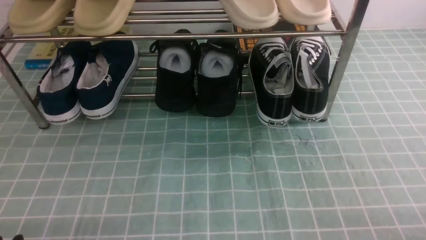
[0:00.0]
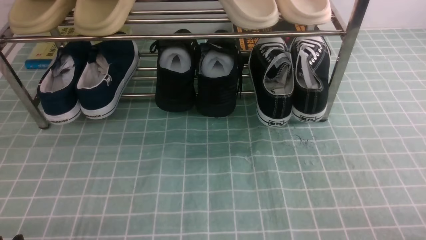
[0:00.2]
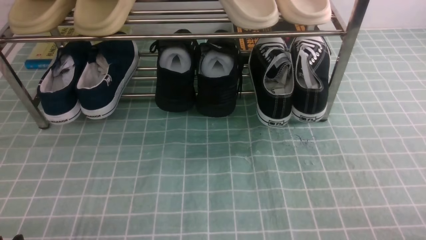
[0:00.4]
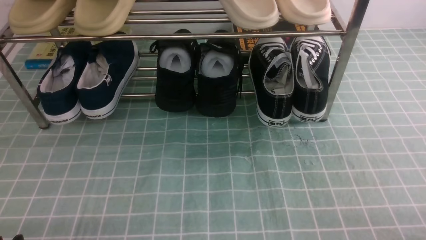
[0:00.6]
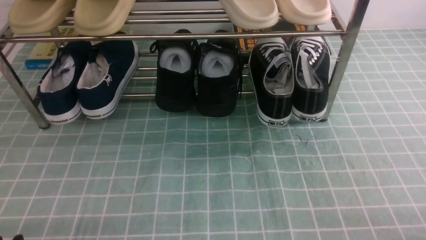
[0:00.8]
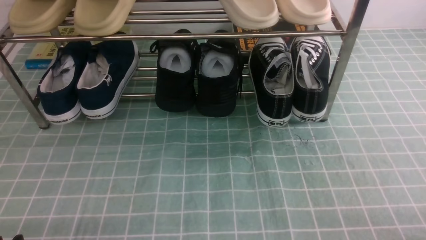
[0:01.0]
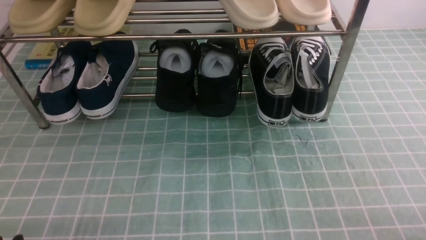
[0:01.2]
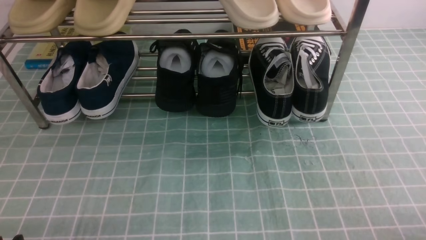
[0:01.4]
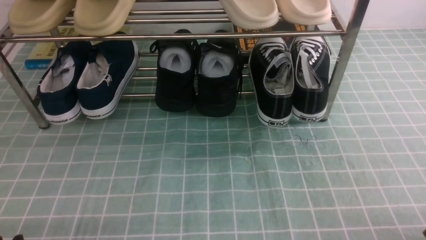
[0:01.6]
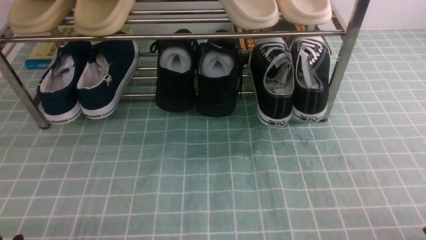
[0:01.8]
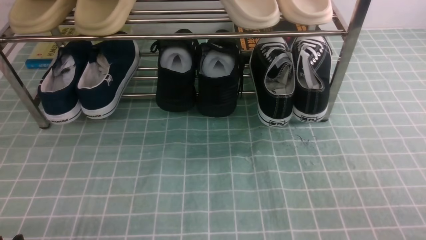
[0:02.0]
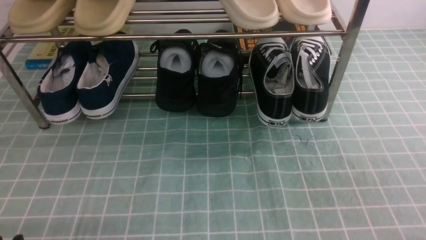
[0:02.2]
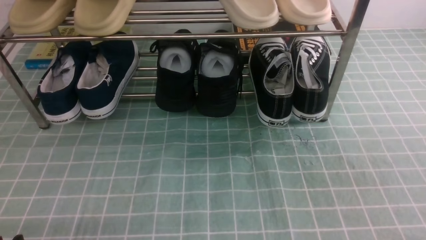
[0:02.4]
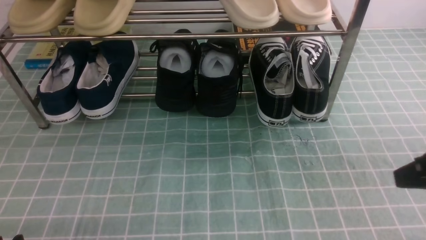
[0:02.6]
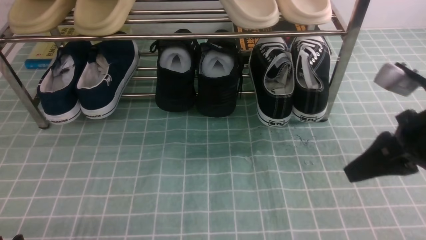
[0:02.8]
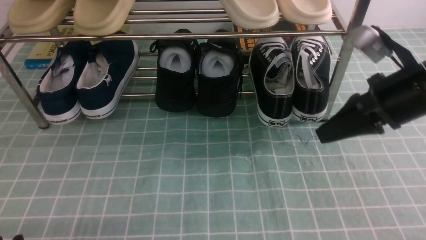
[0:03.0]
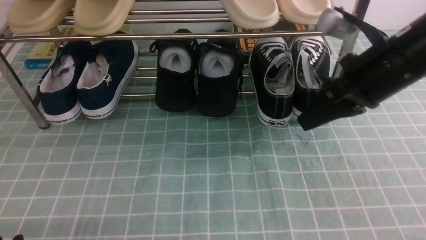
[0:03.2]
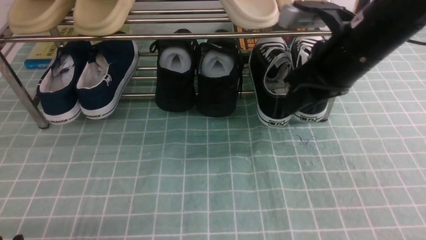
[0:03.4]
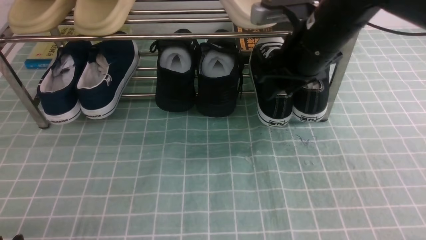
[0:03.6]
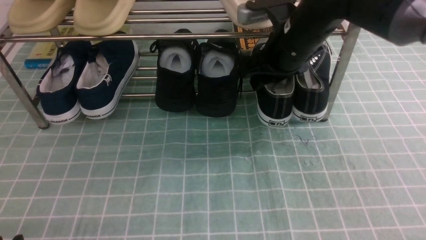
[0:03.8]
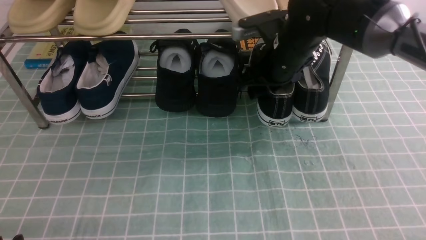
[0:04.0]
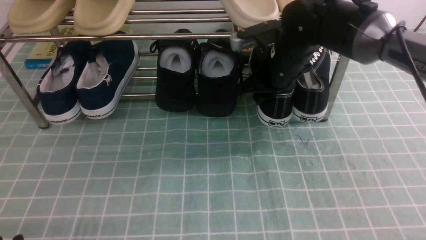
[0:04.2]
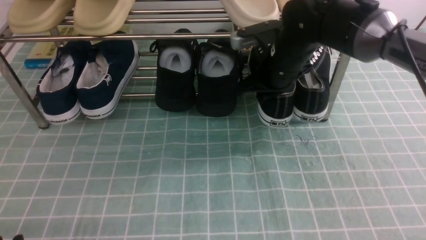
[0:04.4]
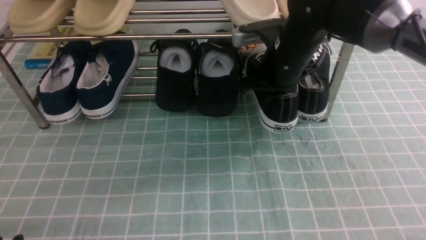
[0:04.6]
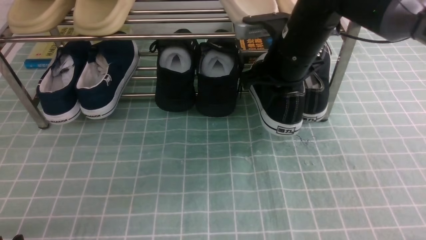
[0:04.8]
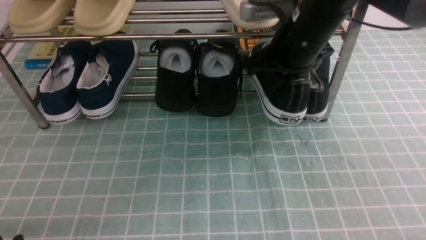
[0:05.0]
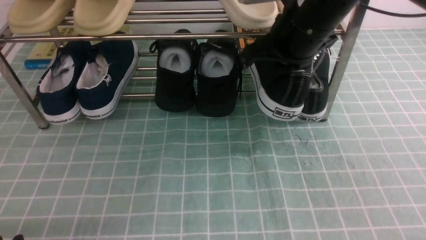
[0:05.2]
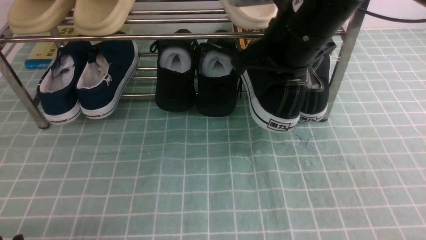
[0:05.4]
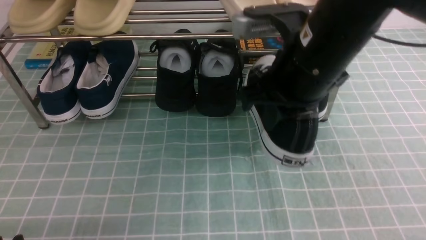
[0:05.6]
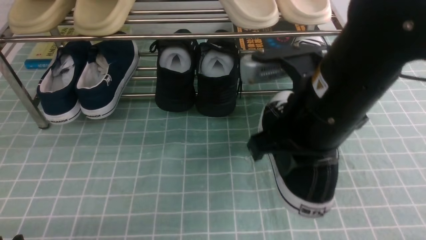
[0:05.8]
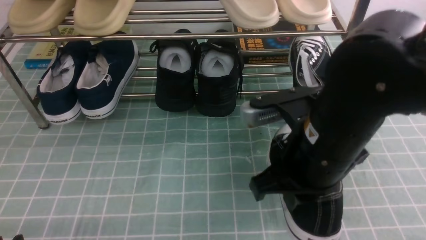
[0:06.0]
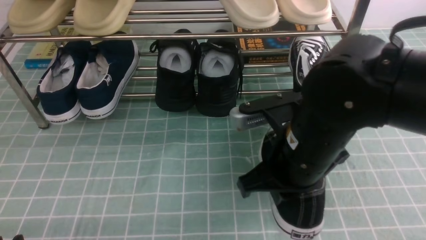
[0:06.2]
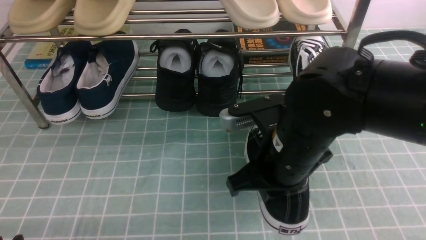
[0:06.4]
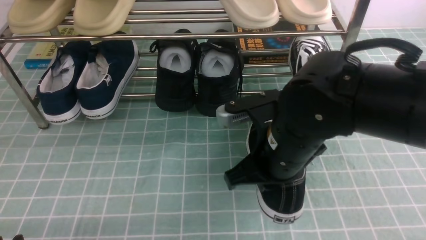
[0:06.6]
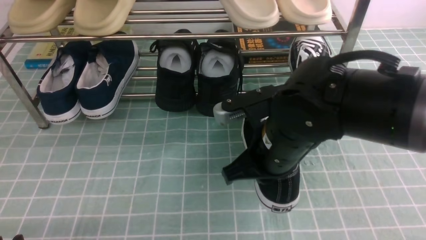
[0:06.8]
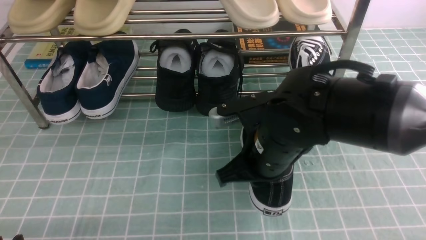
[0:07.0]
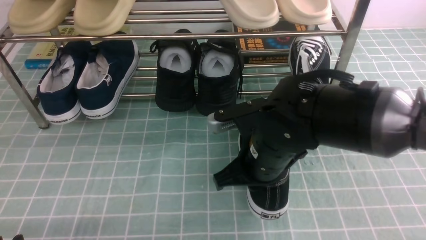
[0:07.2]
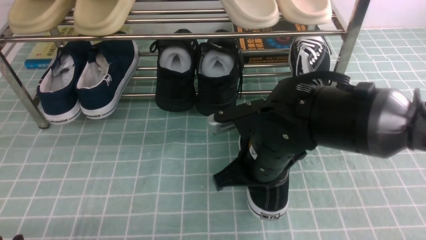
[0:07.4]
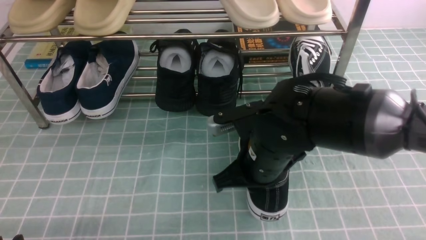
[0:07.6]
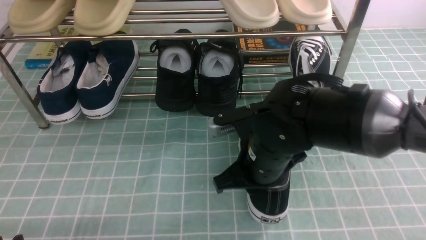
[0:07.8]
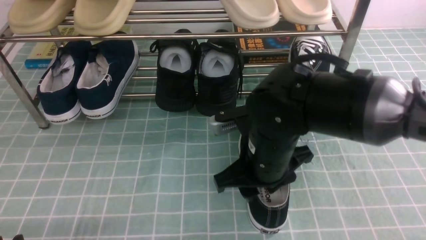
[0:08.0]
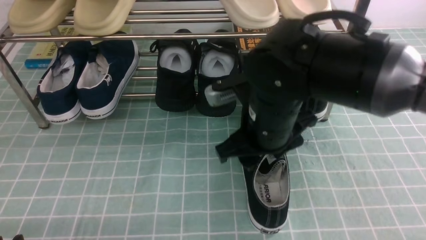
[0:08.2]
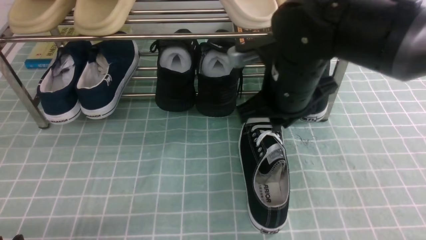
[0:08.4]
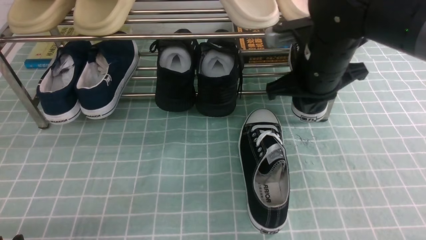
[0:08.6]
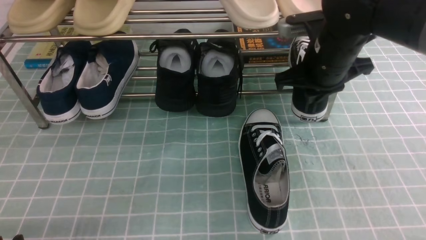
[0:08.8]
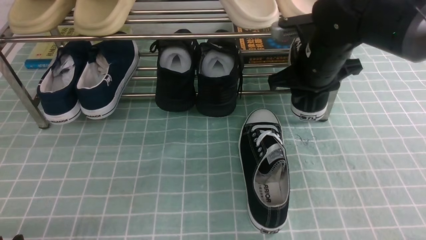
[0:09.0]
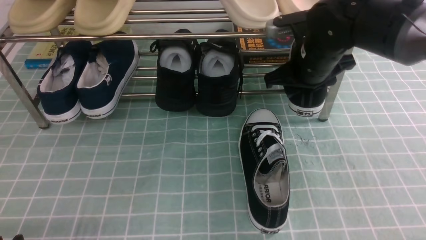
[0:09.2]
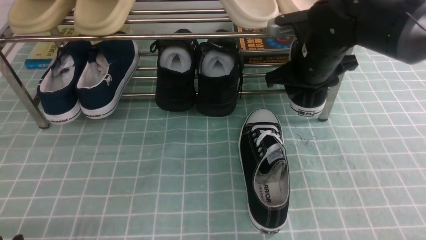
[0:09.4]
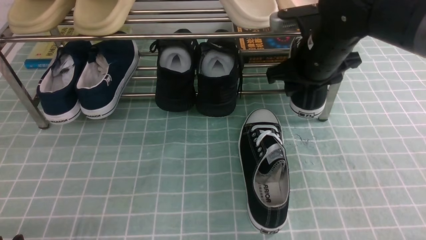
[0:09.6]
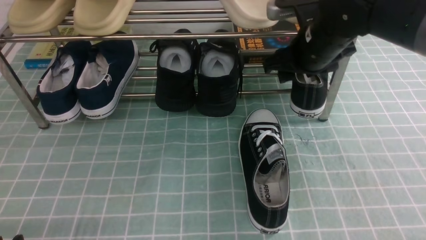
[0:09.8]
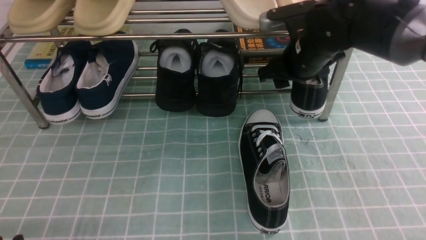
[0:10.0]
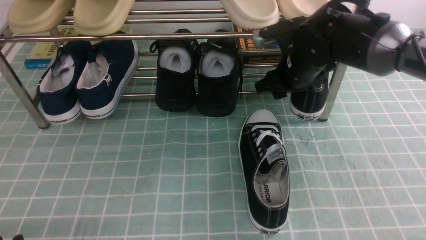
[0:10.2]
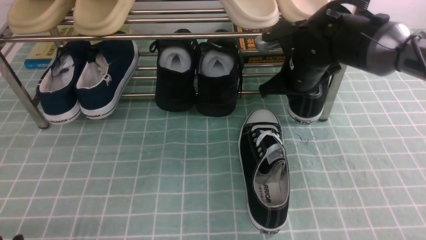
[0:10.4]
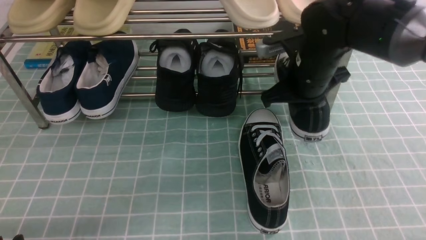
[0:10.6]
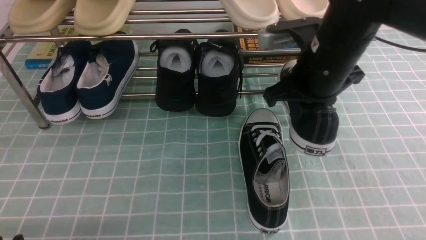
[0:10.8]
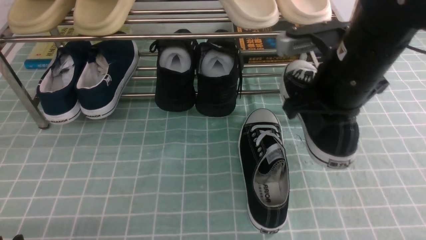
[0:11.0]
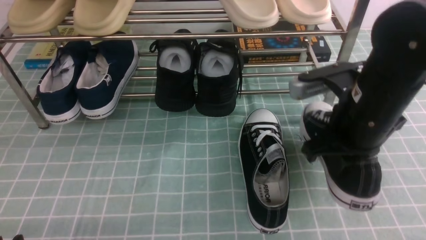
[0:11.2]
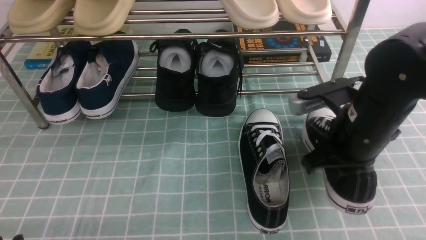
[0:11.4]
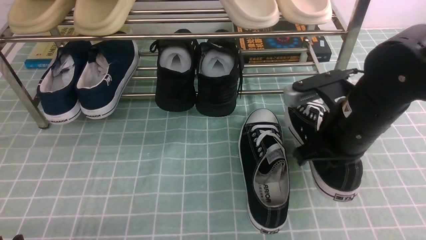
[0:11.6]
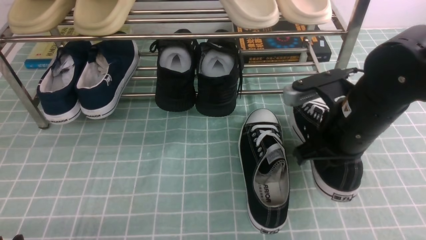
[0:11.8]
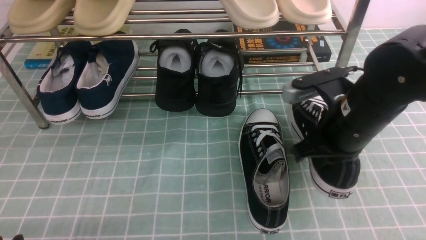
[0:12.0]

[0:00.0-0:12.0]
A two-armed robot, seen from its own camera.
Step, 0:00.0 to 0:04.2: use the right arm to clamp a shoe on the right side of the shoe rack.
Step, 0:04.4 to 0:08.2: use the right arm to take out the clamped shoe from the shoe rack and put it down.
Step, 0:08.4 to 0:10.2: use the right arm to clamp a shoe on the right side of the shoe rack.
0:01.6 to 0:03.0: The right gripper travels forward, upward and to the left by approximately 30 cm, and closes.
0:03.0 to 0:04.4: The right gripper moves forward and to the left, some 20 cm, and opens and closes again.
0:04.4 to 0:06.0: The right gripper is displaced backward by some 20 cm.
0:06.0 to 0:07.6: The right gripper is displaced downward by some 10 cm.
0:07.6 to 0:09.0: The right gripper heads forward, to the right and upward, covering approximately 15 cm, and opens its fingers.
0:09.0 to 0:10.4: The right gripper closes its fingers.
0:10.4 to 0:12.0: The right gripper travels backward by approximately 10 cm.

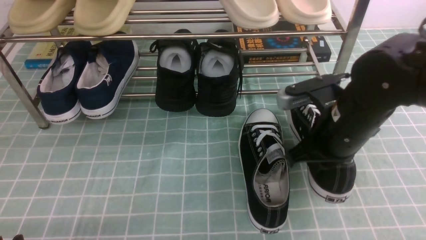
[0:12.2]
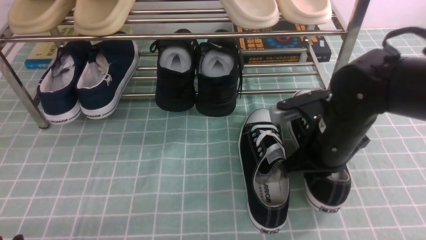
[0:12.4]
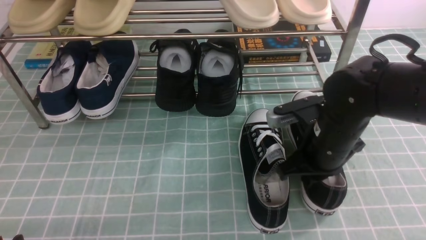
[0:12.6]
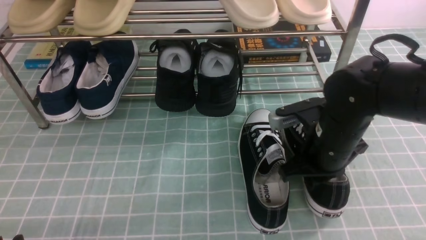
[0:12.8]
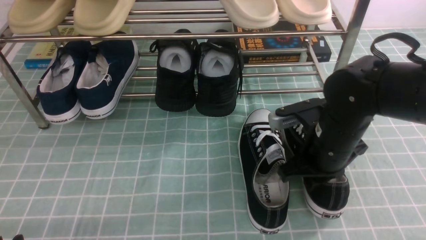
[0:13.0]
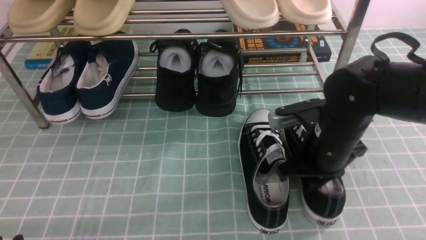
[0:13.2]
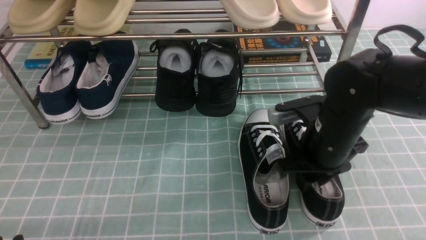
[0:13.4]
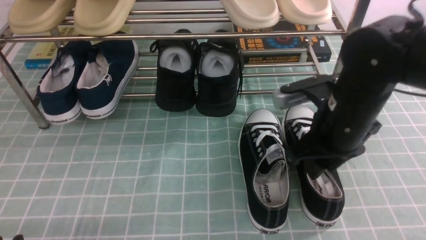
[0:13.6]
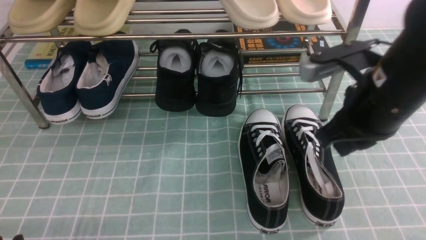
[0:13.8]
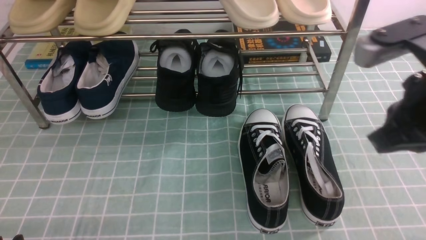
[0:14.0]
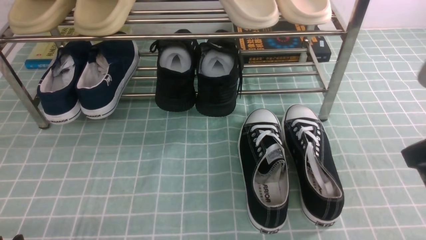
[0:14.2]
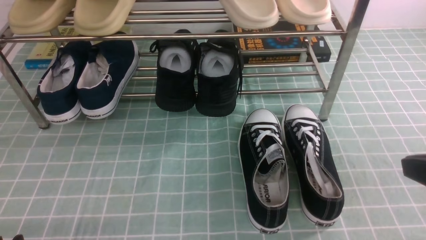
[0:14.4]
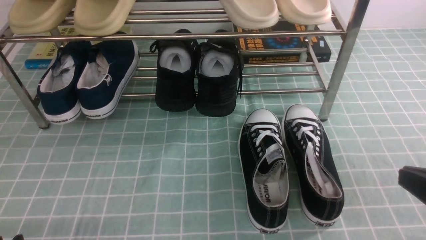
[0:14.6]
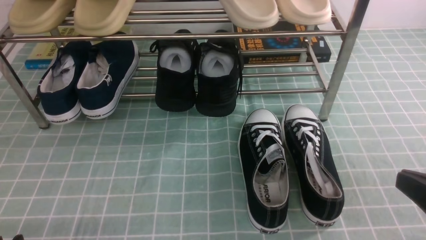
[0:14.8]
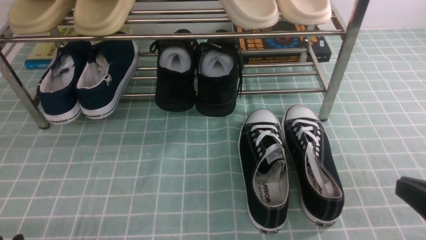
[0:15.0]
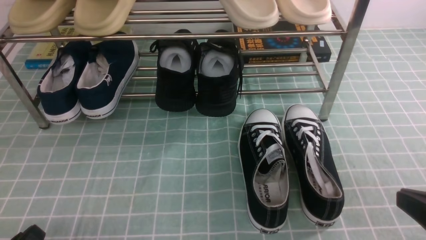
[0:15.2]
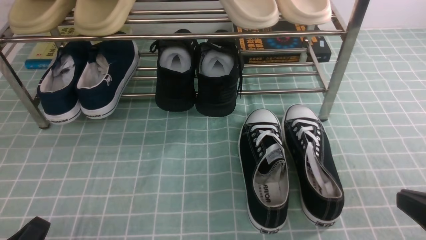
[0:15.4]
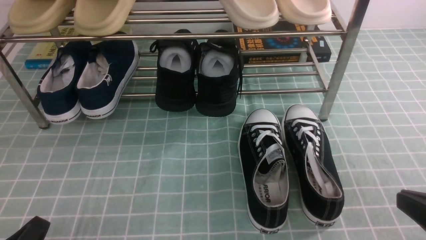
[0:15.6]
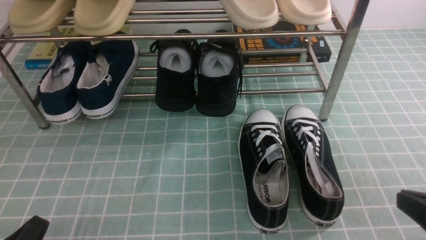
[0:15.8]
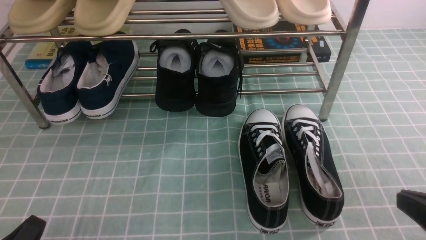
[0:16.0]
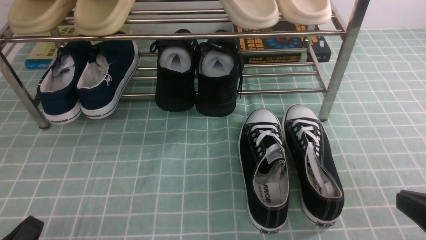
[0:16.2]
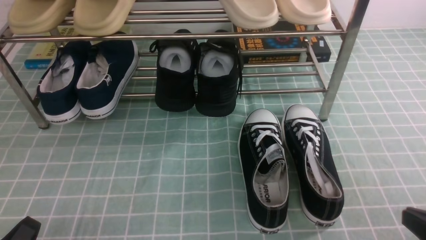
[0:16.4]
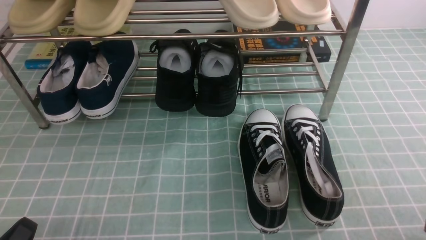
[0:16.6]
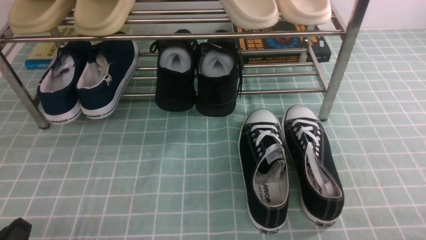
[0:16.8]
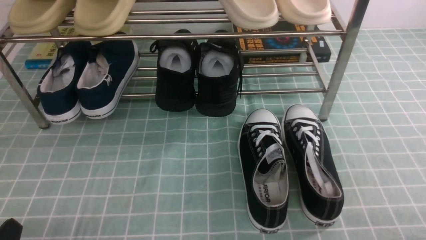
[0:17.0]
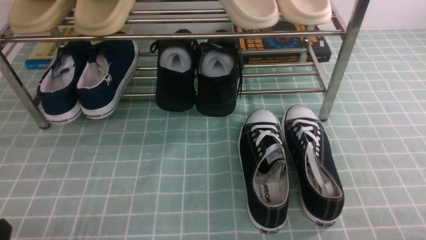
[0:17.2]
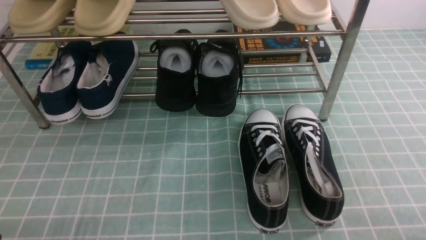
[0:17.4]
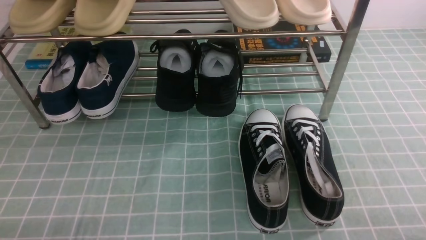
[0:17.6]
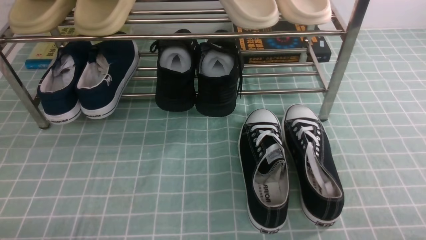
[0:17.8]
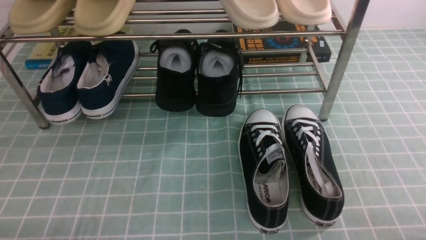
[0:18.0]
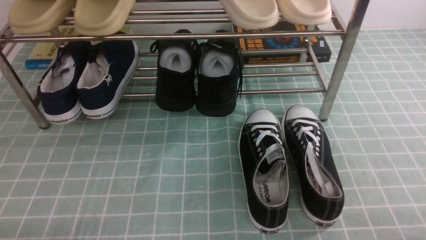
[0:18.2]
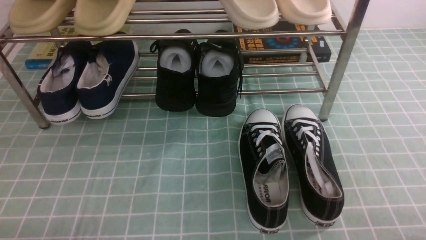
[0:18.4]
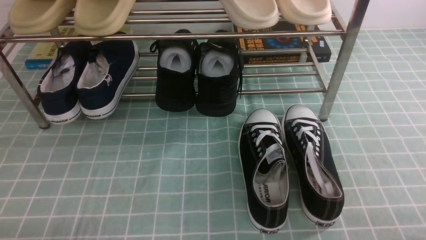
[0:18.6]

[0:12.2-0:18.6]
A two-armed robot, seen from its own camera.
0:12.2 to 0:13.8: The right gripper moves upward, about 10 cm.
0:13.8 to 0:15.4: The right gripper travels backward, to the right and downward by approximately 20 cm.
0:15.4 to 0:17.0: The right gripper goes some 10 cm downward and to the right.
